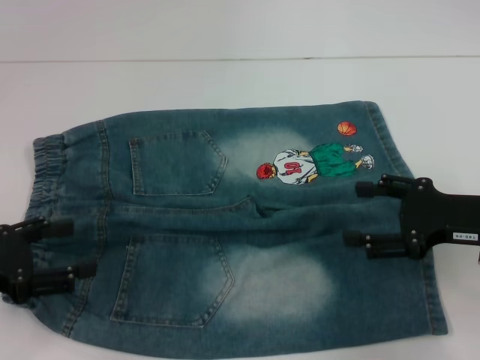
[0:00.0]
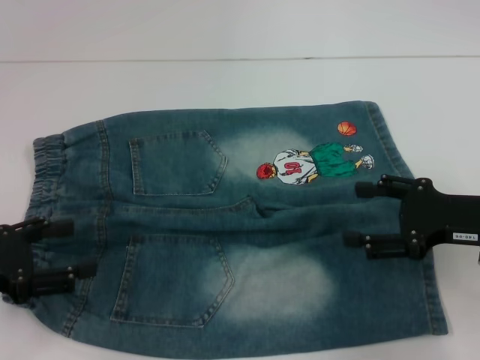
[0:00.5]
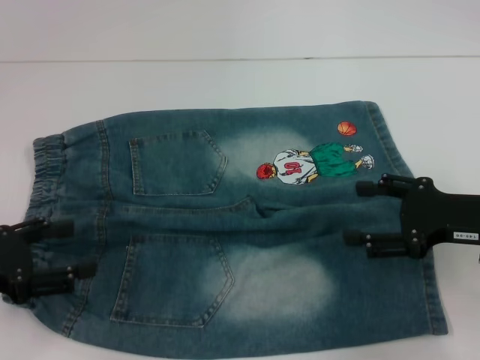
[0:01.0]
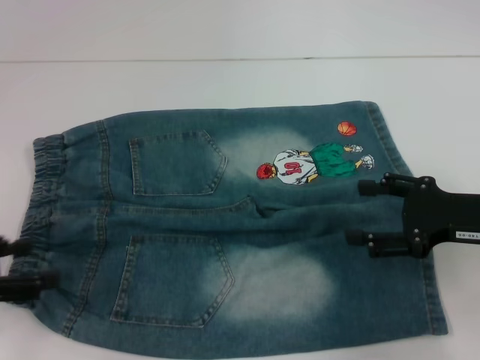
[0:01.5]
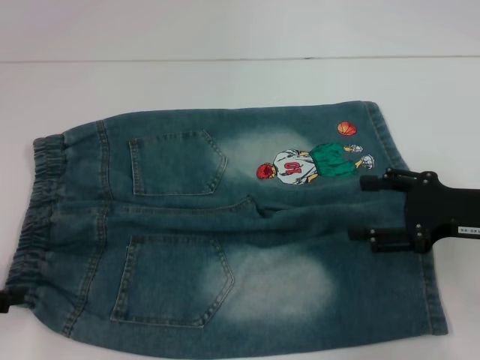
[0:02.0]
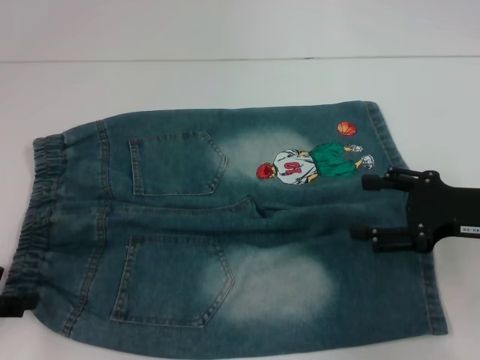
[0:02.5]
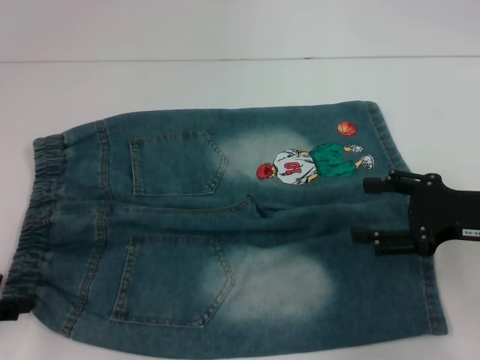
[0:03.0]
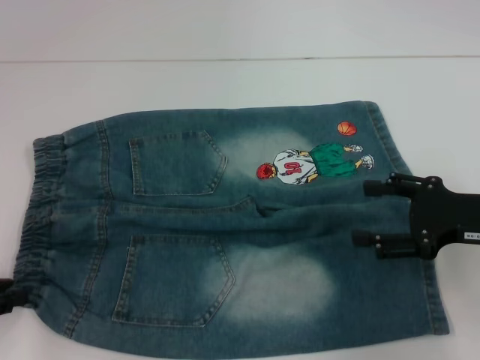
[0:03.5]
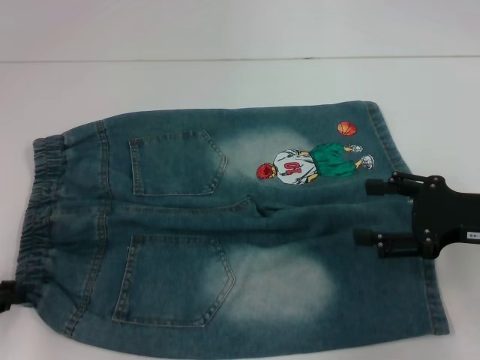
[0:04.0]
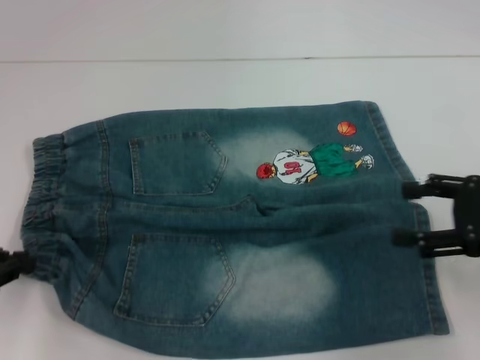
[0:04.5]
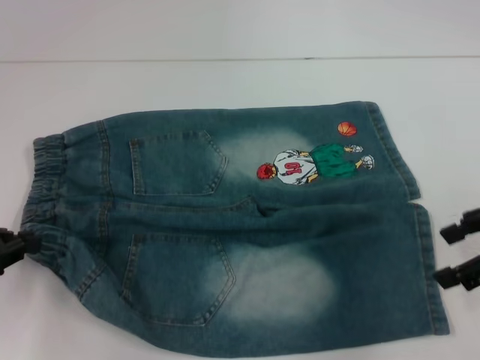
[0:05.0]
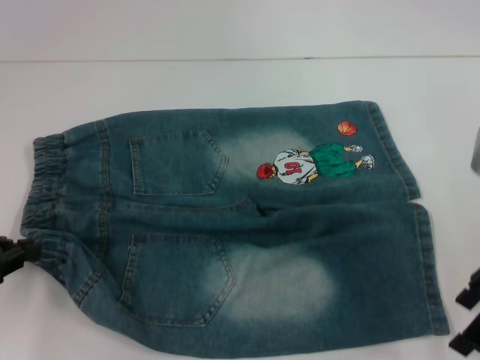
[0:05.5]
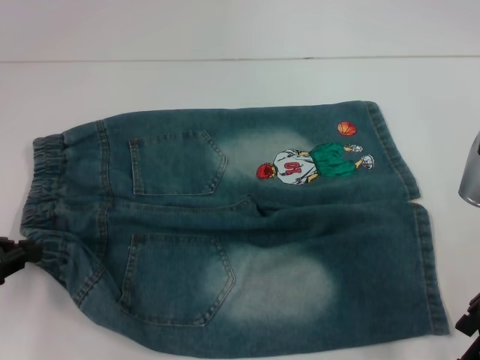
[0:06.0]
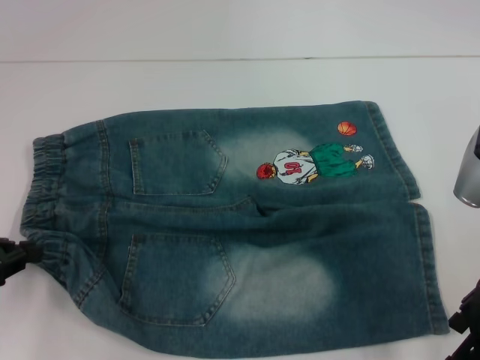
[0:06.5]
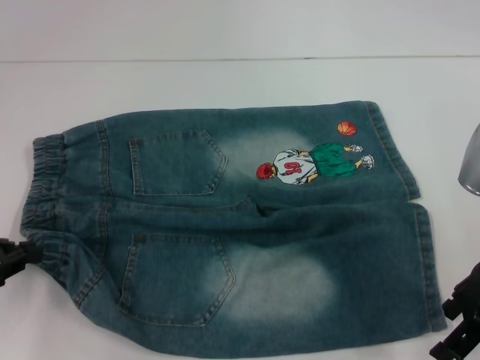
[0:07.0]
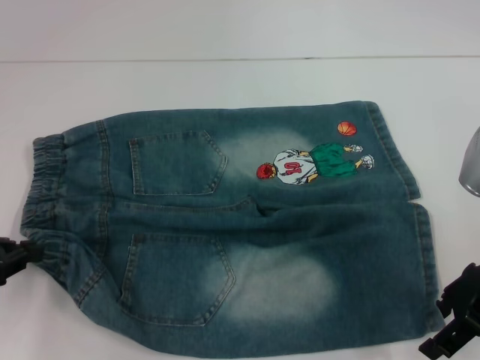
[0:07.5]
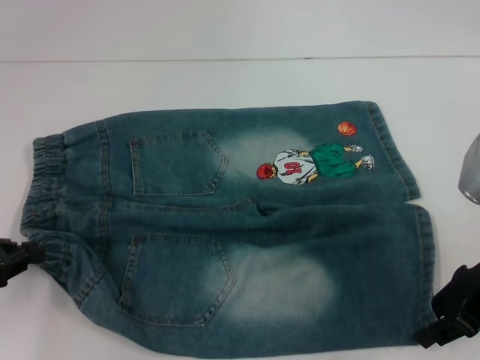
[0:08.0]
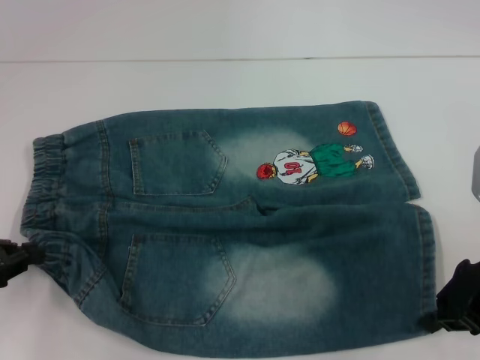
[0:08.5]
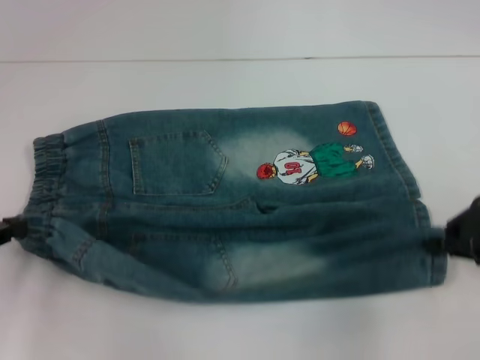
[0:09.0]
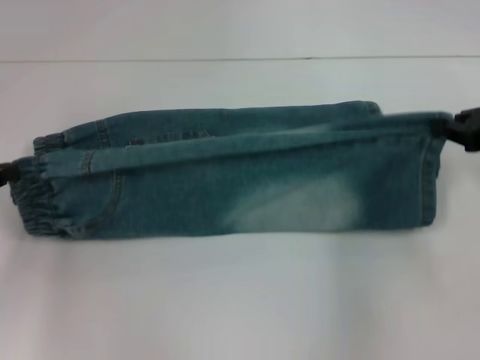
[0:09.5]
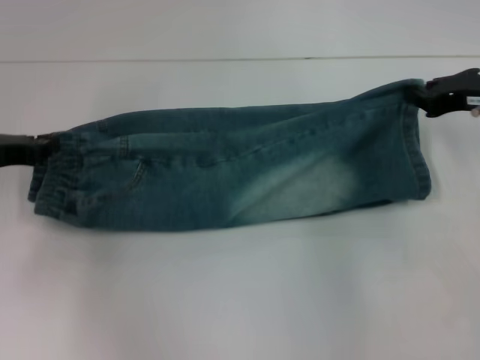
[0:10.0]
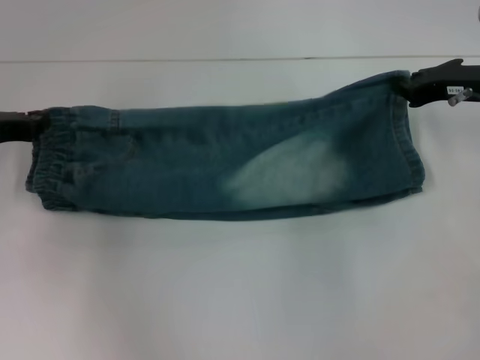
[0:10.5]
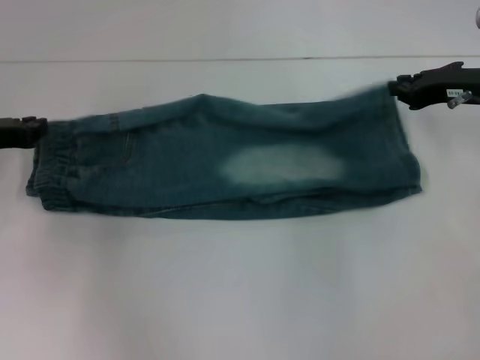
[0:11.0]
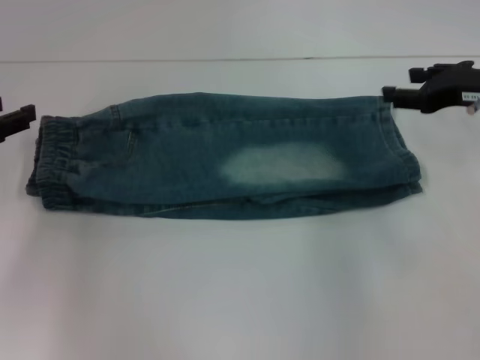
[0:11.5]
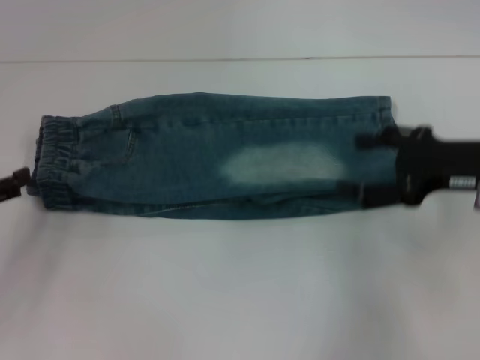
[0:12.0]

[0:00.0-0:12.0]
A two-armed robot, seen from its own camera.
Step, 0:00.0 to 0:03.5: Hold the lower left waistband with your left hand.
Step, 0:04.0 to 0:08.0: Grab the lower right pant leg with your right hand.
Step, 0:08.5 to 0:11.0: Fold upward with your right hand.
0:02.0 to 0:04.0: The left gripper closes.
0:04.0 to 0:06.0: The right gripper changes place by approximately 5 cm.
0:06.0 to 0:08.0: There are only small adjustments of the grippers.
0:08.0 to 0:10.0: Both grippers move forward, some 10 cm. The right gripper closes up.
0:10.0 to 0:12.0: Both grippers travel together backward, approximately 10 cm. The left gripper opens. The right gripper opens up.

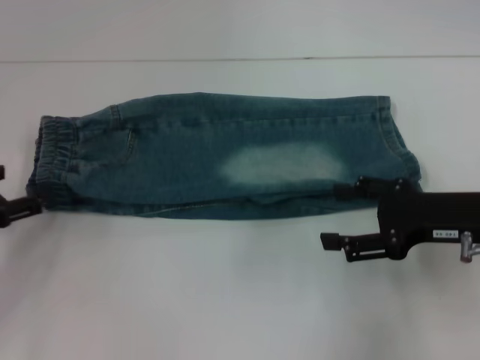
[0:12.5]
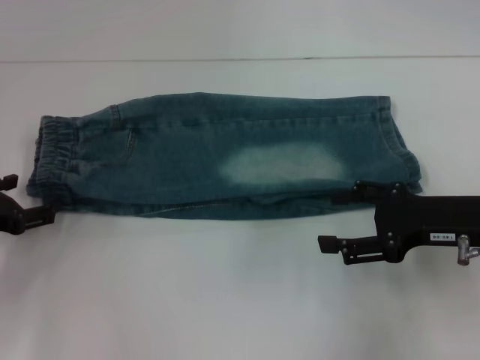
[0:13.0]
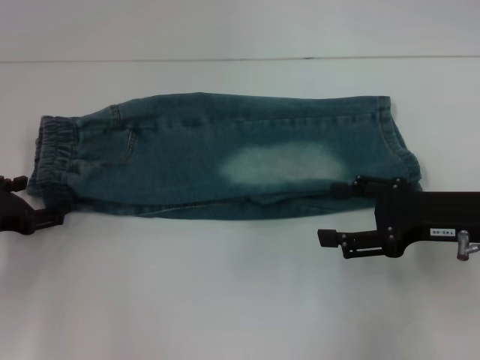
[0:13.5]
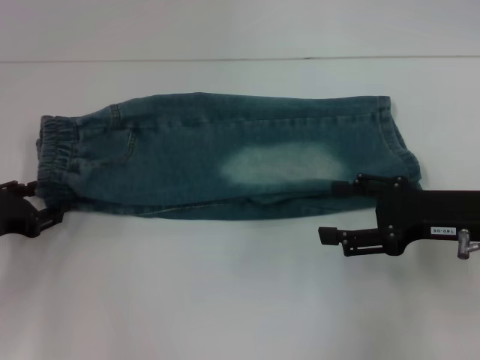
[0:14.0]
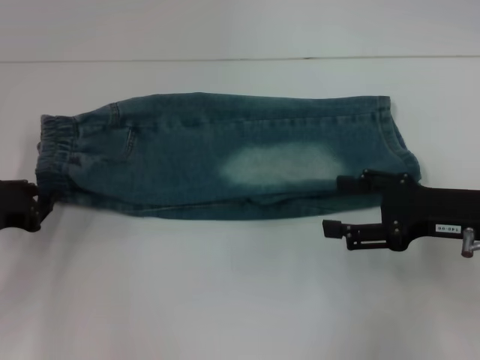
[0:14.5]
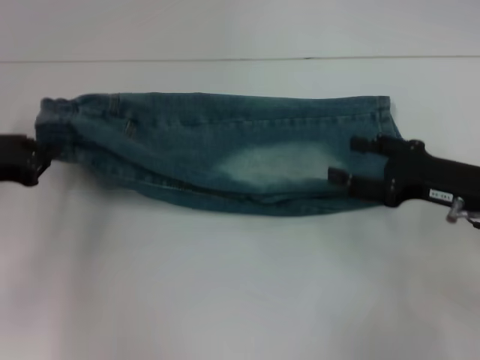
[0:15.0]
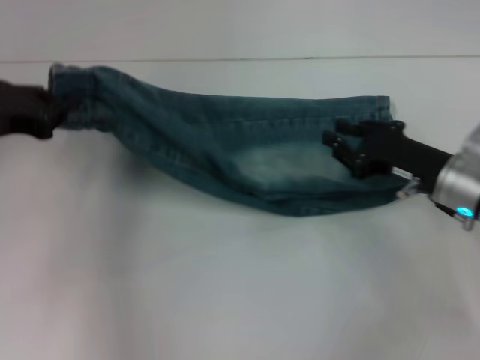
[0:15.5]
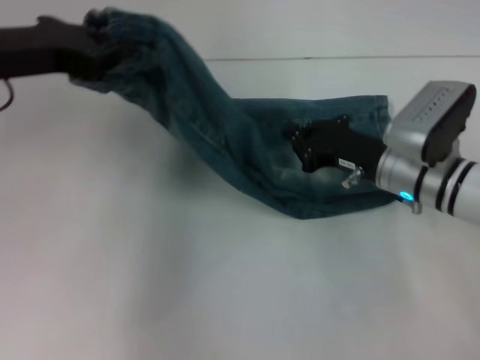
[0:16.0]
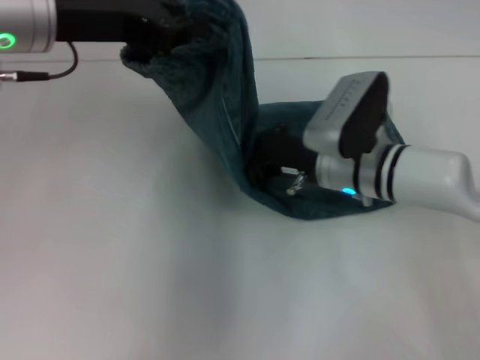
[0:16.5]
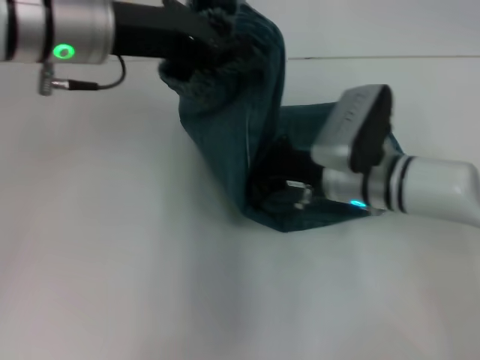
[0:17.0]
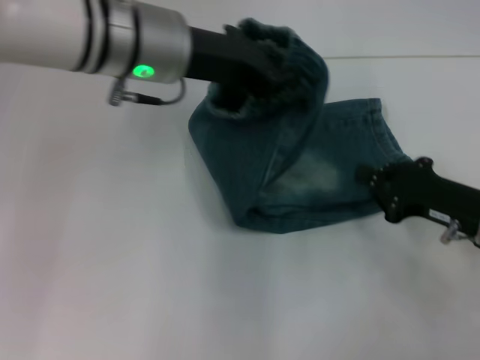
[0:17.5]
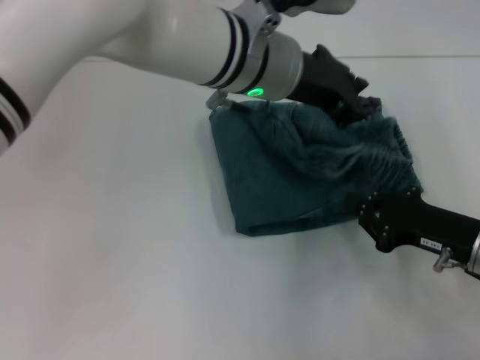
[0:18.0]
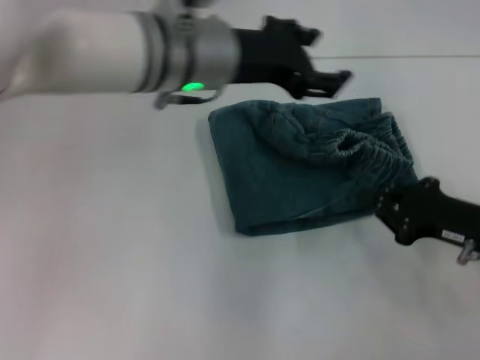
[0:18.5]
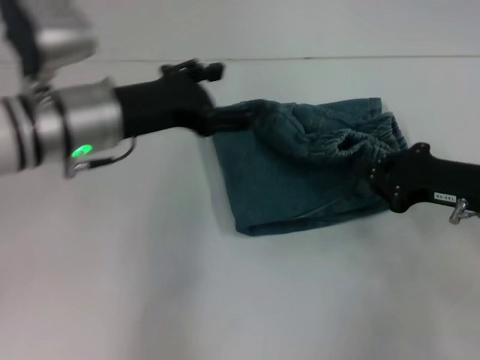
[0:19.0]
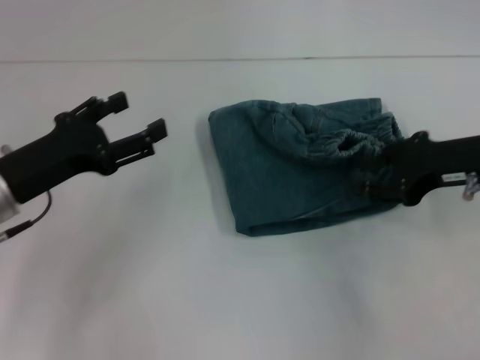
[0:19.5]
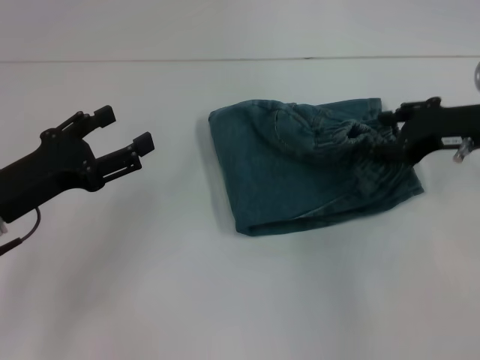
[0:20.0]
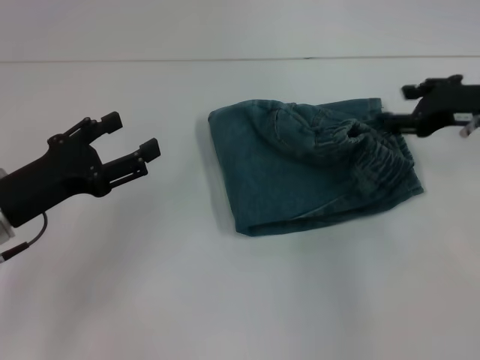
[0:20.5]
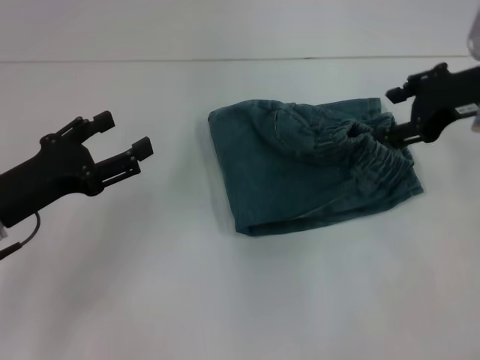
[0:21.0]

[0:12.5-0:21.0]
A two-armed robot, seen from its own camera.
Step, 0:14.5 to 0:17.0: Press the middle of the pants with your right hand.
Step, 0:17.5 to 0:18.0: Fold to the right with your left hand.
Step, 0:18.5 to 0:20.0: Adjust the pants with your right hand.
0:12.5 to 0:14.5: The left gripper closes its fingers.
0:14.5 to 0:16.5: The right gripper goes approximately 15 cm to the left and forward, and closes up. The left gripper is displaced upward and to the right by some 25 cm.
0:16.5 to 0:19.0: The left gripper is displaced downward by approximately 10 cm, moves about 20 cm to the right and comes back, and opens. Meanwhile the right gripper heads to the right, covering approximately 15 cm.
0:19.0 to 0:21.0: The right gripper shifts approximately 15 cm upward and forward, and opens. Meanwhile the left gripper is displaced to the left, backward and downward by about 15 cm.
